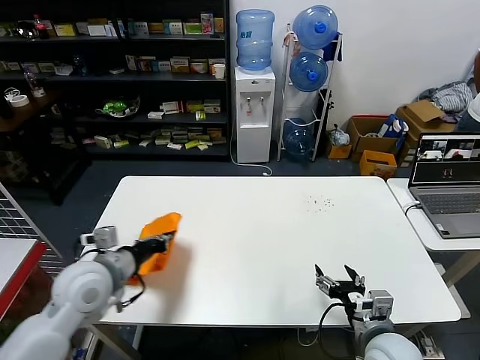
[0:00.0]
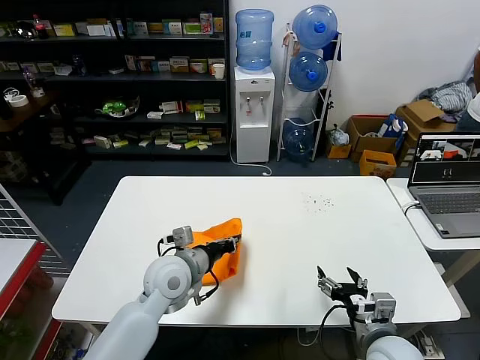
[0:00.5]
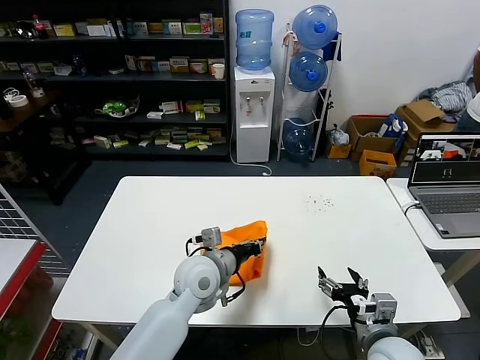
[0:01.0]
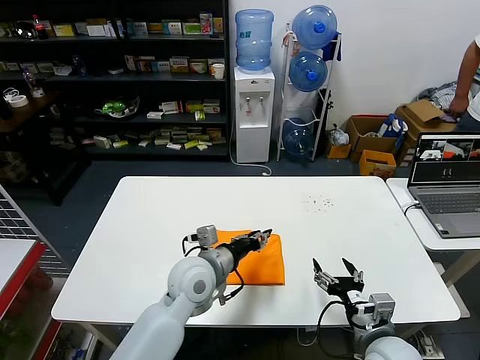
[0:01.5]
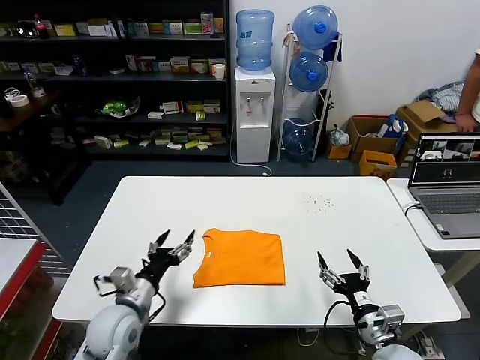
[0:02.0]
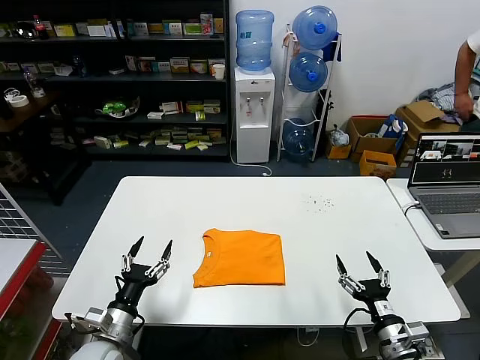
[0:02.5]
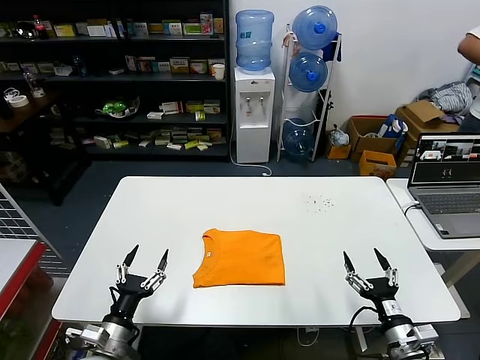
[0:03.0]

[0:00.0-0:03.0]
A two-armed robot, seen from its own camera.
Task of the whole recording: fold and organize the clothes.
0:00.0 to 0:01.5: The left gripper heads to the right, covering approximately 20 cm, and opens up.
0:01.5 to 0:03.0: The right gripper moves to the right and downward, approximately 10 cm. Meanwhile the left gripper heads to the left, backward and downward, covering about 30 cm, and opens its fingers.
